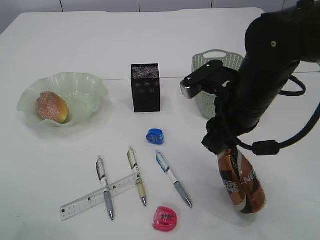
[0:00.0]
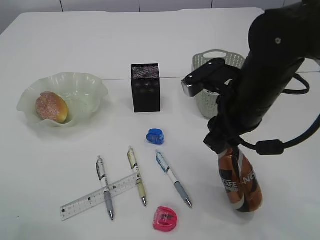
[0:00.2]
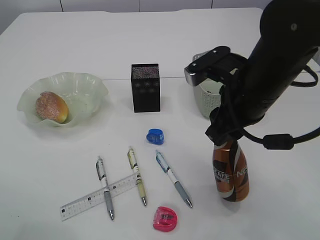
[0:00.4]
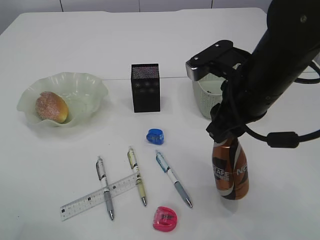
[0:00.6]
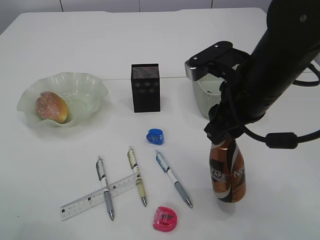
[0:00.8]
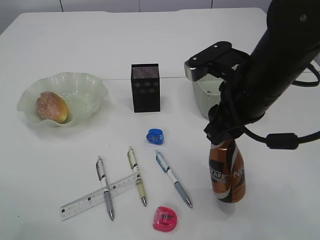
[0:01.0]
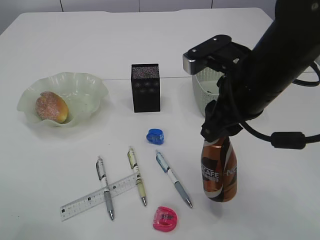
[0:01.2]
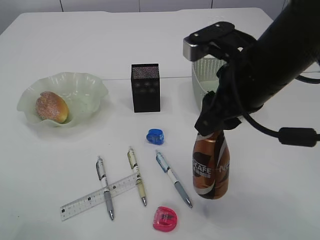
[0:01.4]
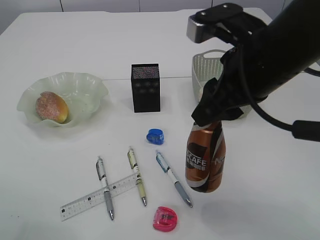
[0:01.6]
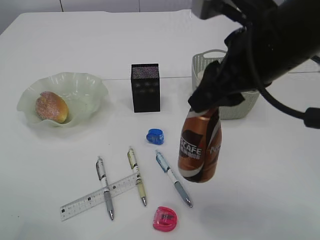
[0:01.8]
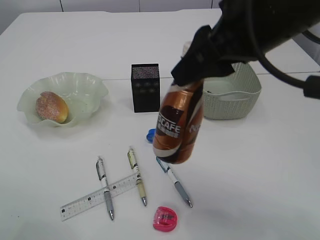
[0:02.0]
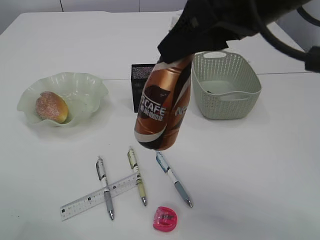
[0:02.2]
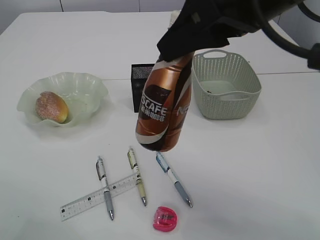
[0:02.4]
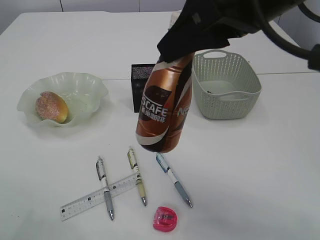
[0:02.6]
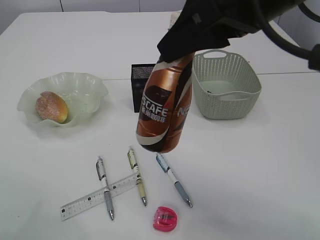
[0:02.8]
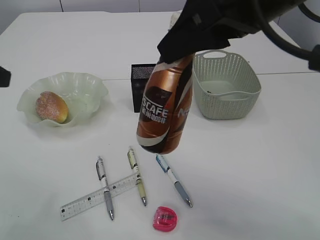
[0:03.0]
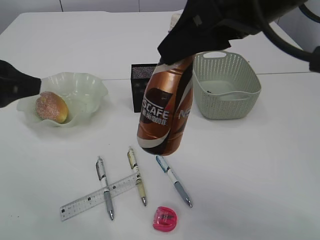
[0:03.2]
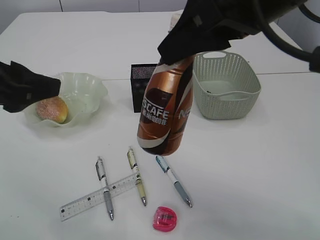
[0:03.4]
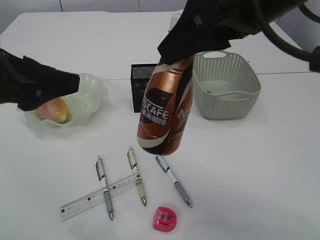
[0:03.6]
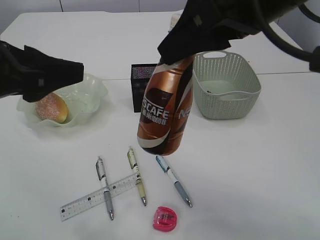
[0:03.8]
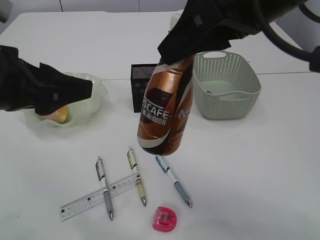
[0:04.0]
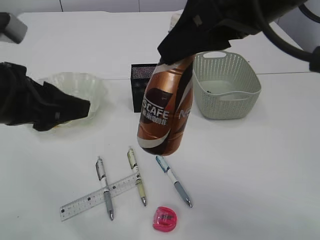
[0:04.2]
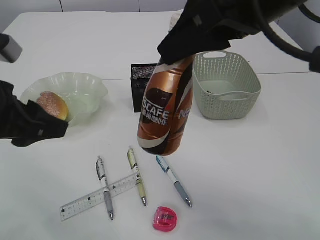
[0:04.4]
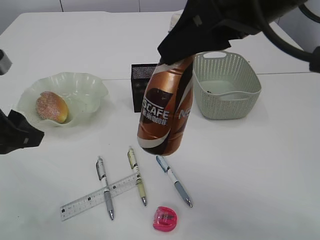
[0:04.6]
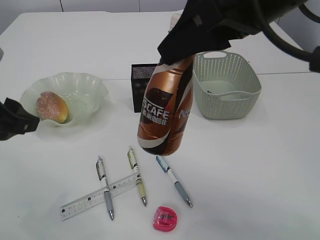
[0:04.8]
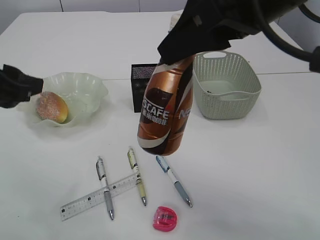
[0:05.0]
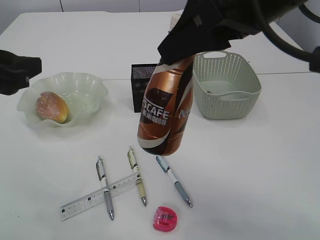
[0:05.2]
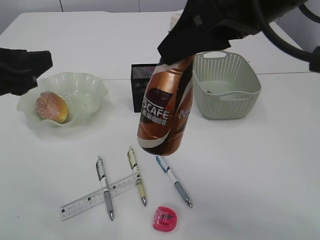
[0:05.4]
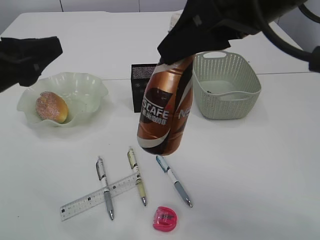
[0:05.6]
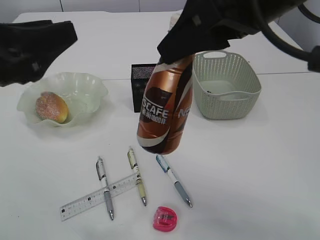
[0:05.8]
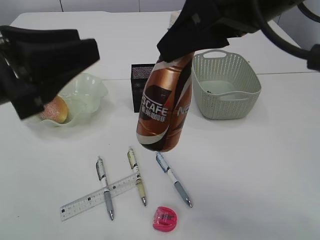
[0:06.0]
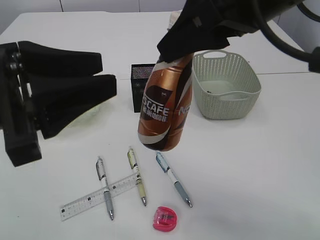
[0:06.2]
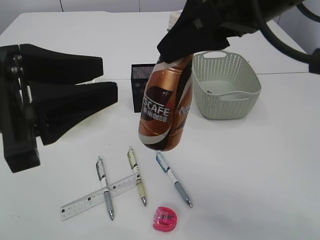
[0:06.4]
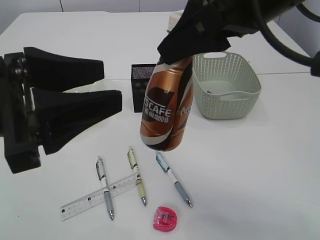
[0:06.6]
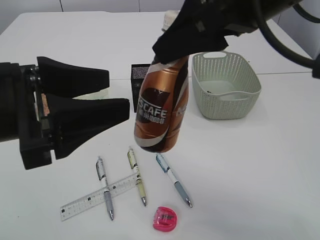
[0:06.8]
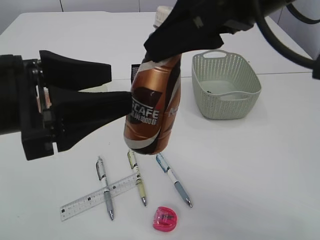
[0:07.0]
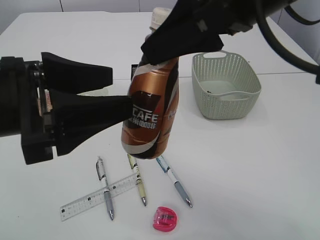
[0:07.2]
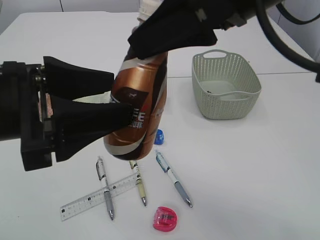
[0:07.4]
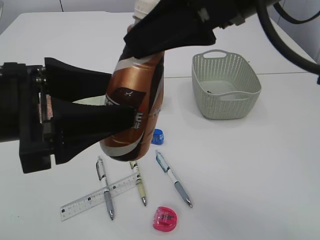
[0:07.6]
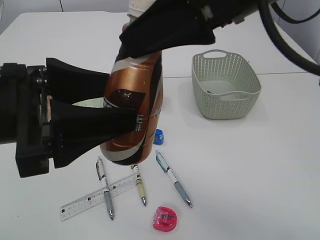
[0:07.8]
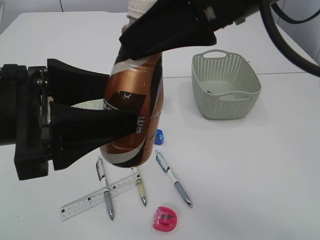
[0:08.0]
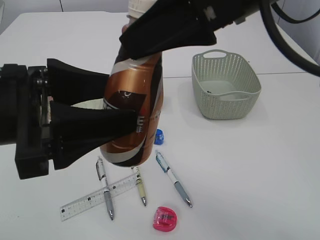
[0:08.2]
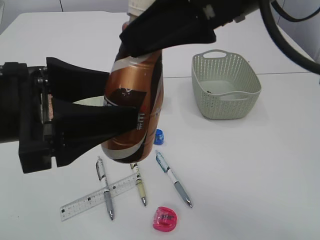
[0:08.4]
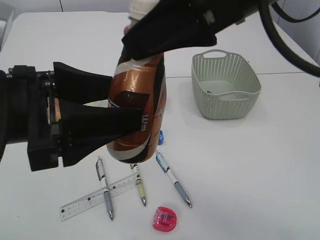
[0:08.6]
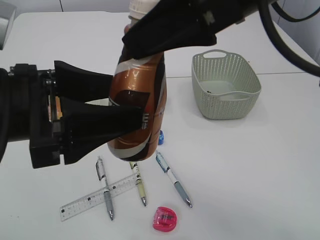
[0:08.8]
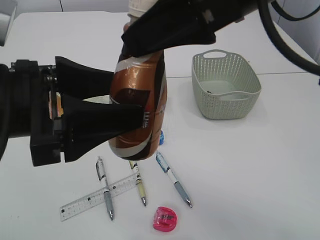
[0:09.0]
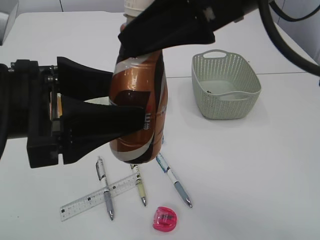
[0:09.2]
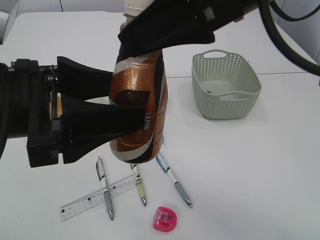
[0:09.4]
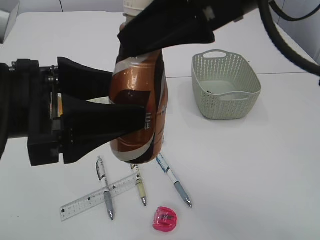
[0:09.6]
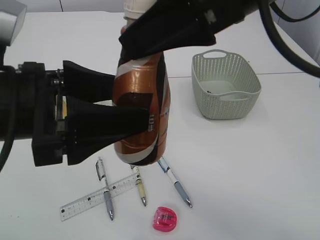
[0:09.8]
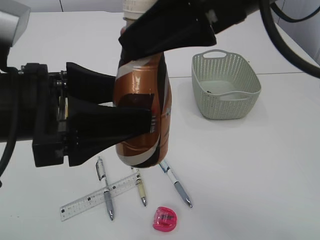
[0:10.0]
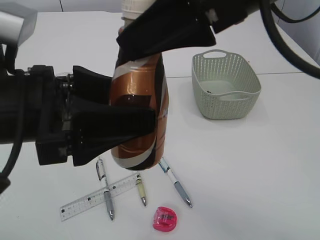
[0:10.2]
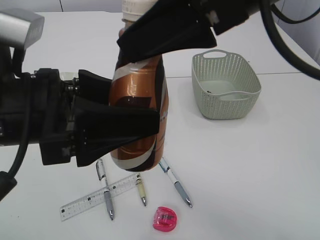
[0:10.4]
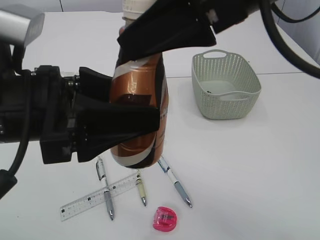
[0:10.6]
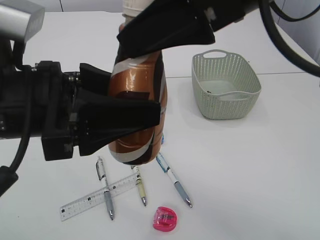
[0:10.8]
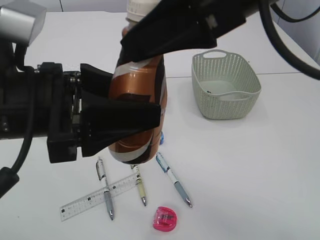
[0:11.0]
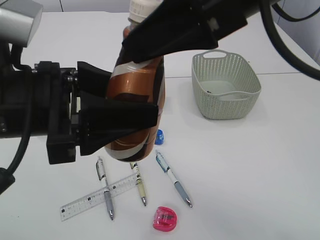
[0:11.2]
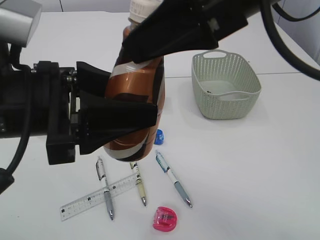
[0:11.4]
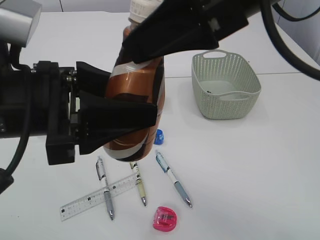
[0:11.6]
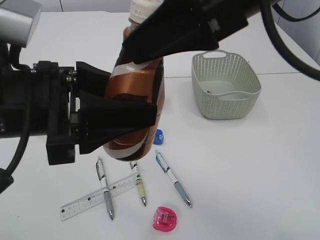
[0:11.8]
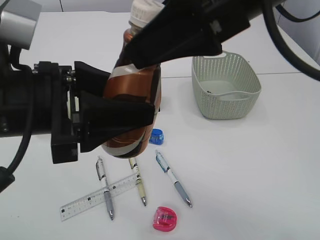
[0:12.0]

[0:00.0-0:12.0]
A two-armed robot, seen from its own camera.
0:00.0 to 0:01.6: The right gripper is displaced upward by roughly 10 cm.
0:01.6 to 0:03.0: The right gripper is displaced upward by some 10 cm.
0:03.0 to 0:04.4: The left gripper travels downward and to the right by about 10 cm.
0:04.4 to 0:06.0: The left gripper shifts by approximately 5 cm.
0:06.0 to 0:07.6: The left gripper opens its fingers.
0:07.6 to 0:09.0: Neither gripper changes place.
0:09.0 to 0:10.4: The grippers move only a little.
0:10.4 to 0:12.0: The left gripper closes up.

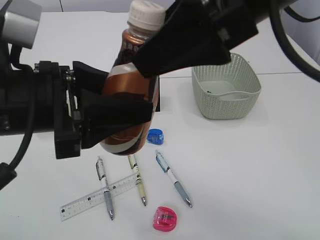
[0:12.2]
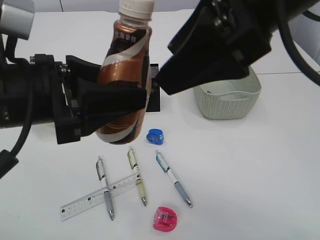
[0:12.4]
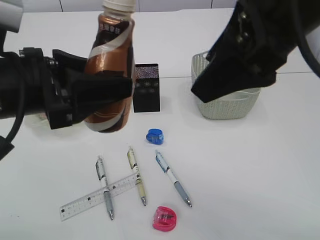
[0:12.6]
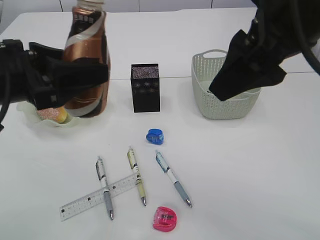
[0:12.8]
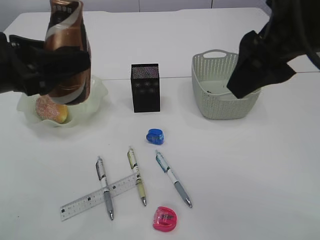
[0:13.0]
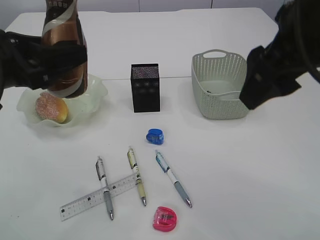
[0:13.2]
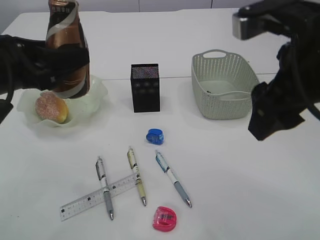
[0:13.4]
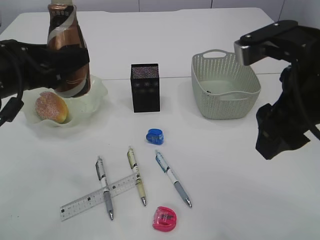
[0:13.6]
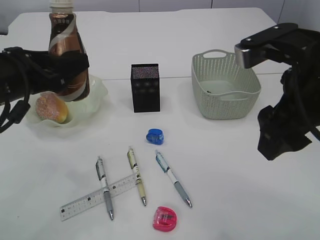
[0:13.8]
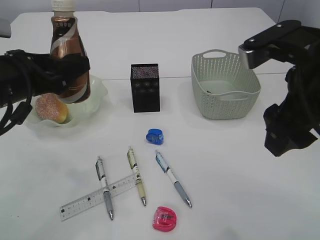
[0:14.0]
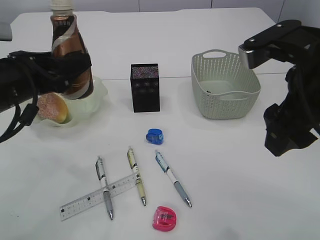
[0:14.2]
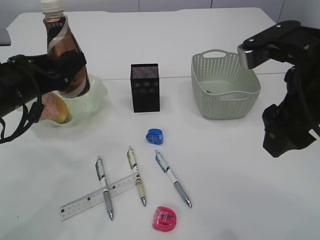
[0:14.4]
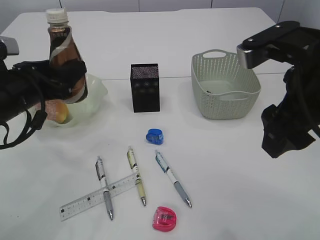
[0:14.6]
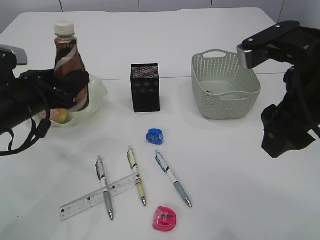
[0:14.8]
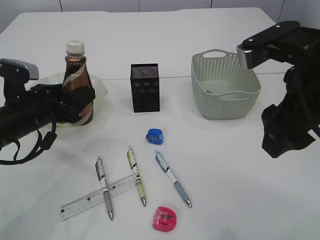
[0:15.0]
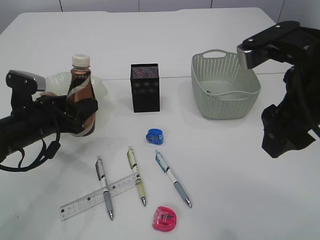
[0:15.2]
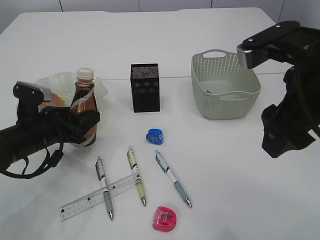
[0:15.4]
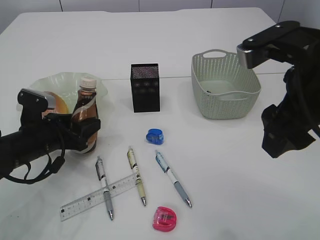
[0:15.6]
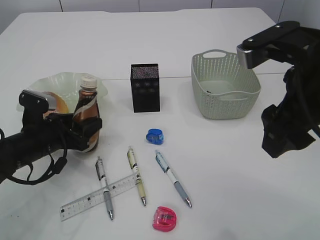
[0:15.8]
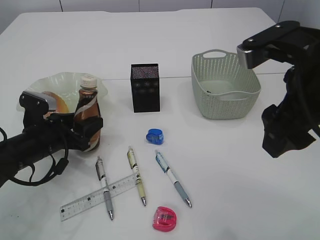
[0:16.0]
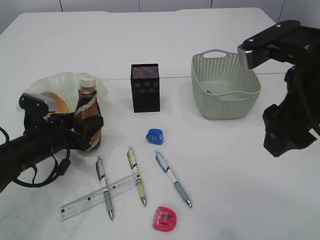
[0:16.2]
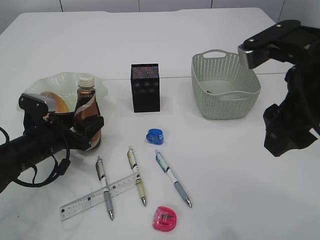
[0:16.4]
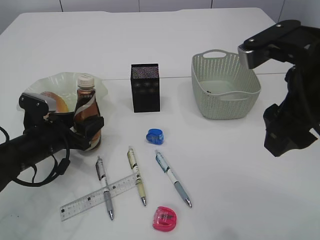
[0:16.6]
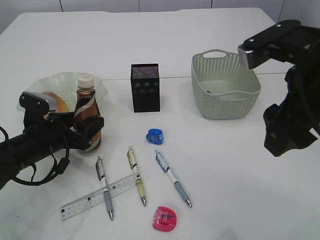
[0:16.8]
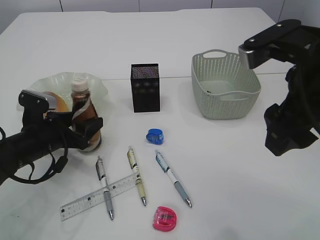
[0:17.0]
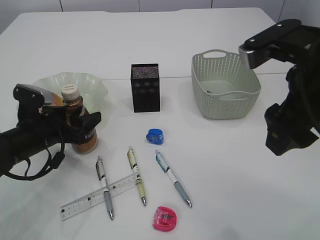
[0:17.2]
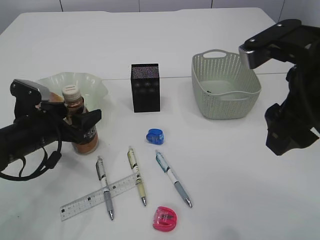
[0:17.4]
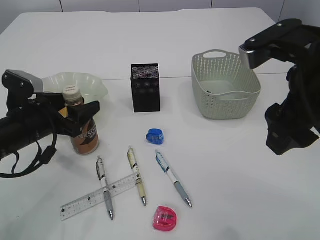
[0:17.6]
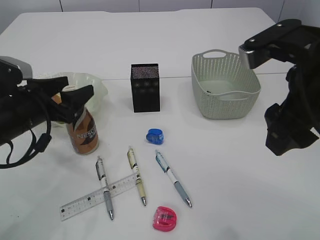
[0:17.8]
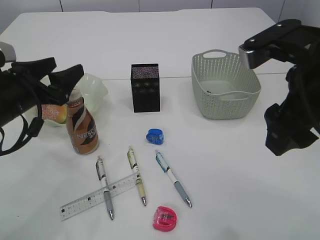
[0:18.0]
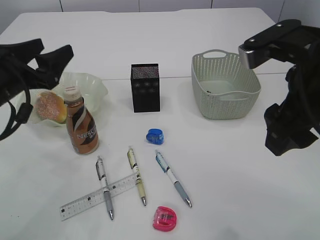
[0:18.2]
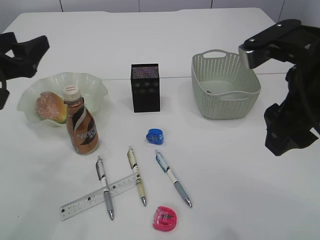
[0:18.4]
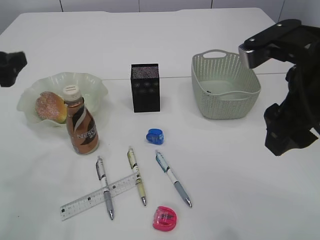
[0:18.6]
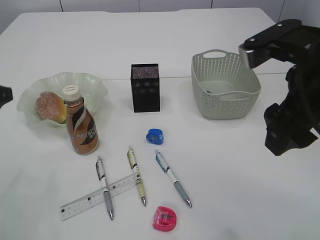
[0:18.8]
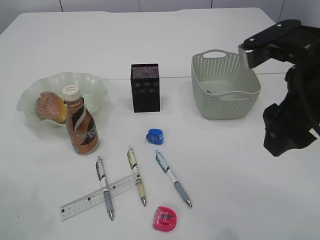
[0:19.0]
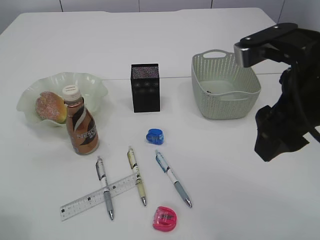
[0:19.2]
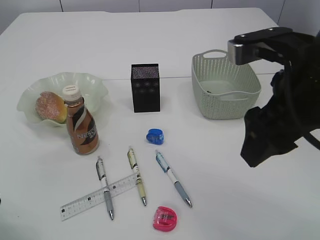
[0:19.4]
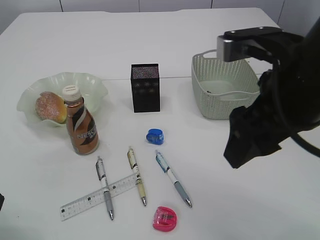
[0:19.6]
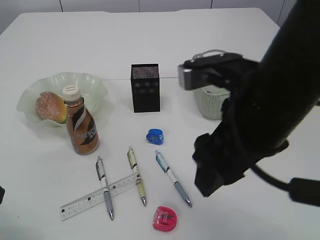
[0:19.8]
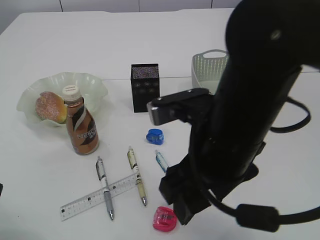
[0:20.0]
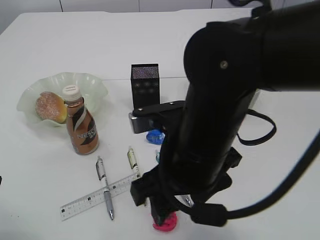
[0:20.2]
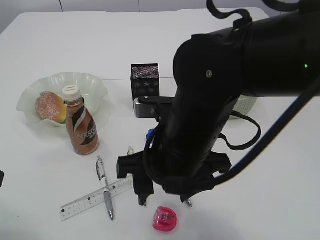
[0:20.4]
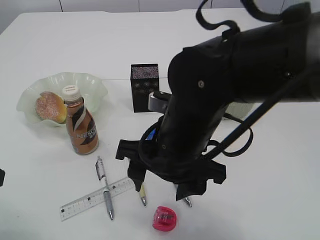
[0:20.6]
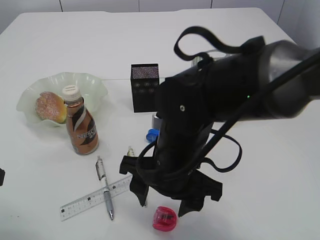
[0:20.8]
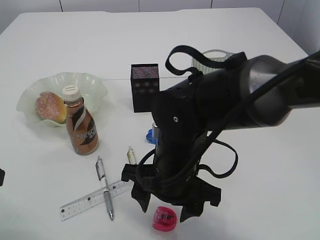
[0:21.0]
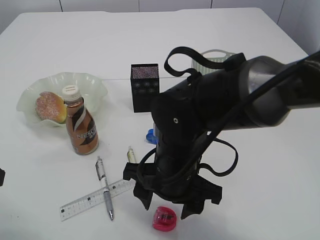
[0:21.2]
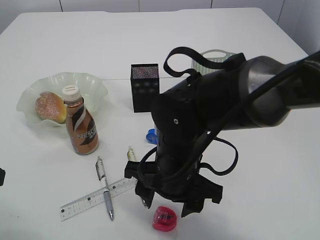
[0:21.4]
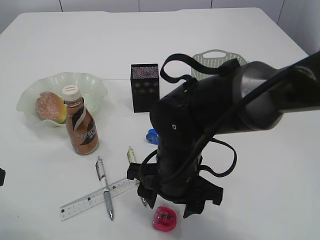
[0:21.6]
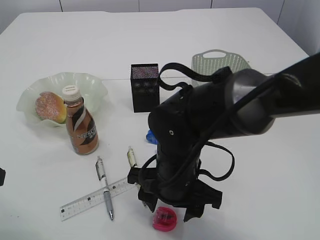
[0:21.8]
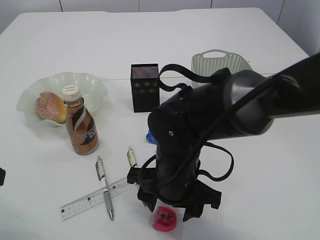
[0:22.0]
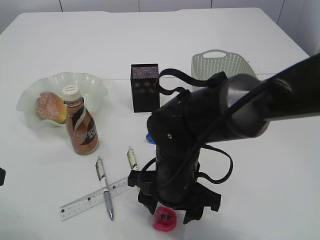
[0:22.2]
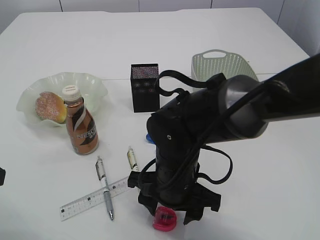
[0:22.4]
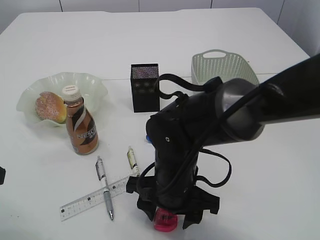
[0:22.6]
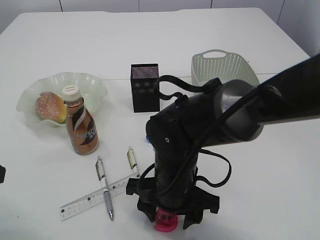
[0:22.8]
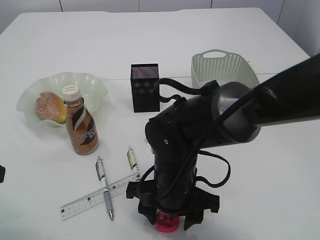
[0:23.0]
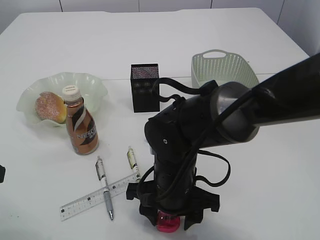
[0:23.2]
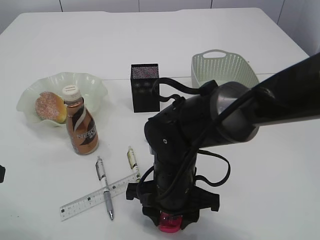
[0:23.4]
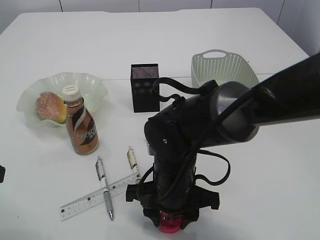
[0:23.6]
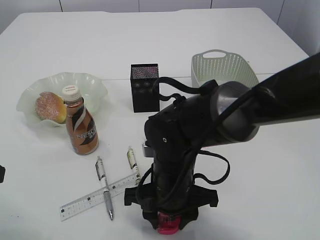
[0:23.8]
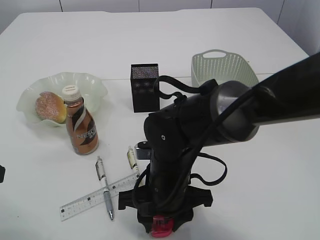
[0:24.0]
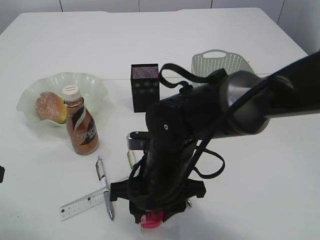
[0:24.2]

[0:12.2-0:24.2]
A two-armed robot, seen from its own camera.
Step, 0:12.6 to 0:18.0: Place the bottle.
0:12.2 to 0:13.8: The right gripper goes about 10 cm downward and to the right, while the left gripper heads forward and to the left, covering about 10 cm.
0:13.8 to 0:15.2: The left gripper is displaced downward by about 10 cm.
0:15.2 to 0:16.6: The left gripper heads downward, covering approximately 5 cm.
0:16.6 to 0:18.2: The left gripper shifts about 15 cm upward.
0:18.2 to 0:19.8: The left gripper heads backward, covering approximately 10 cm, while the right gripper goes approximately 5 cm to the left.
0:19.8 to 0:21.2: The right gripper goes roughly 15 cm downward and to the left.
0:21.2 to 0:22.6: There are only small adjustments of the grippers.
